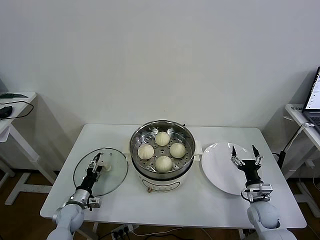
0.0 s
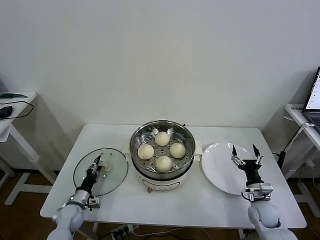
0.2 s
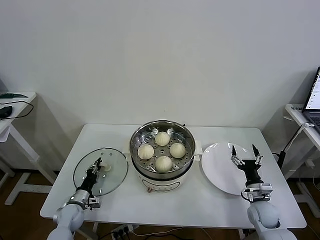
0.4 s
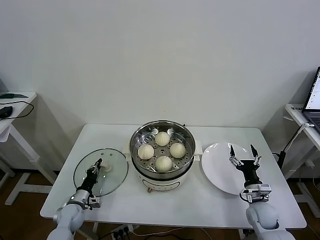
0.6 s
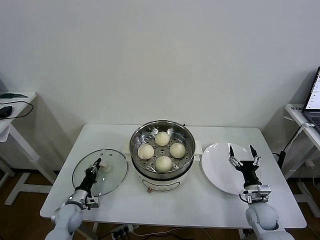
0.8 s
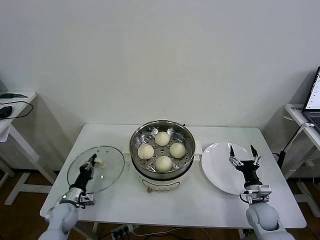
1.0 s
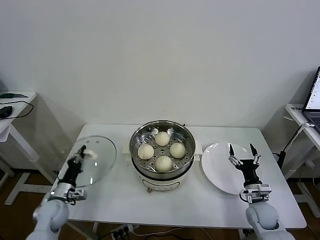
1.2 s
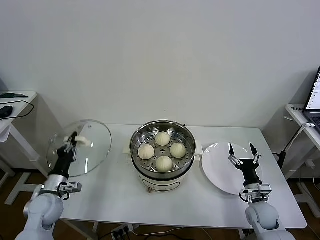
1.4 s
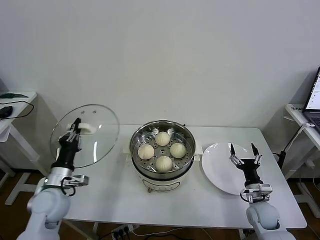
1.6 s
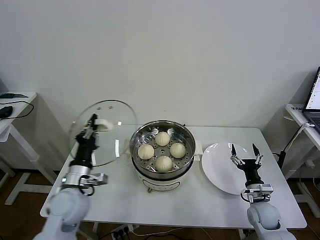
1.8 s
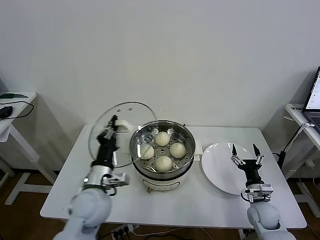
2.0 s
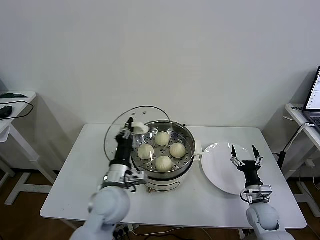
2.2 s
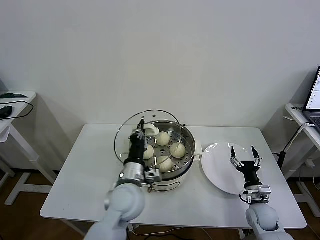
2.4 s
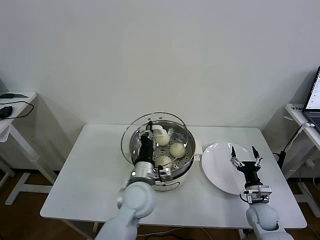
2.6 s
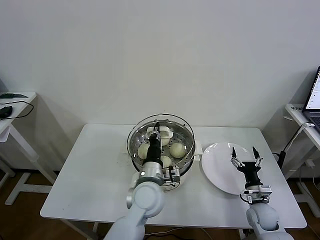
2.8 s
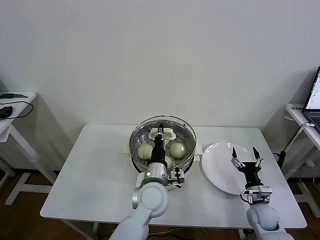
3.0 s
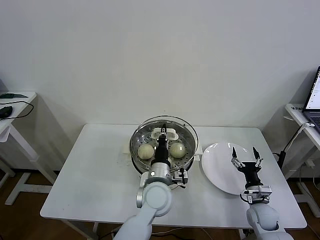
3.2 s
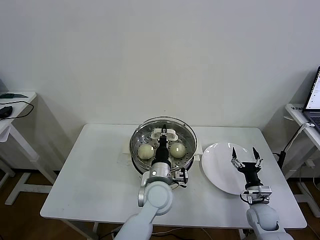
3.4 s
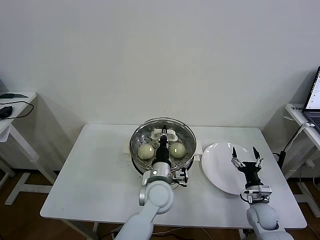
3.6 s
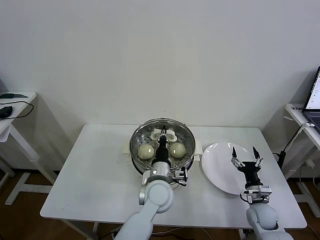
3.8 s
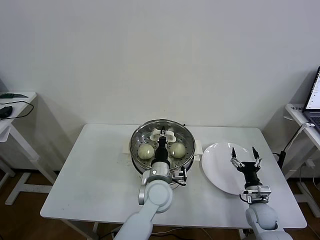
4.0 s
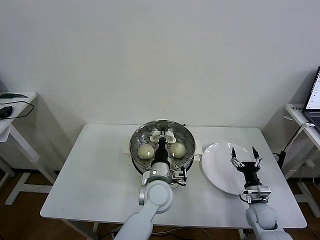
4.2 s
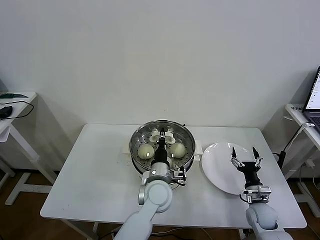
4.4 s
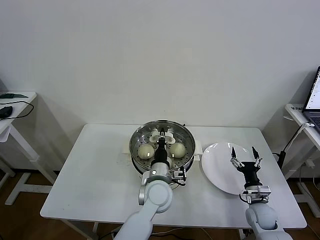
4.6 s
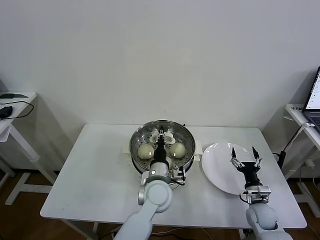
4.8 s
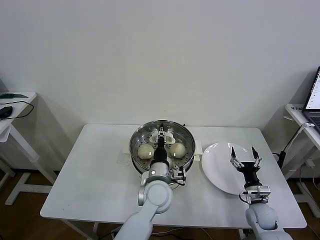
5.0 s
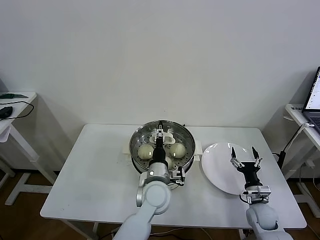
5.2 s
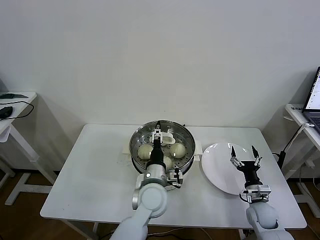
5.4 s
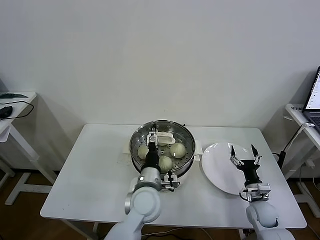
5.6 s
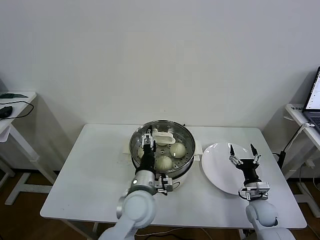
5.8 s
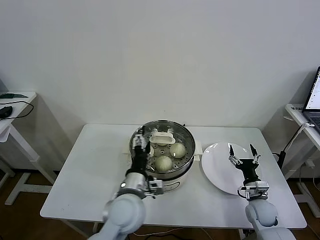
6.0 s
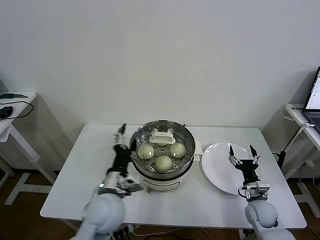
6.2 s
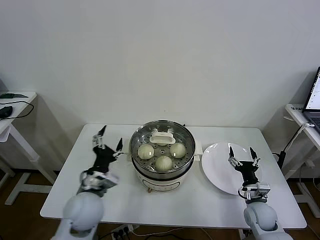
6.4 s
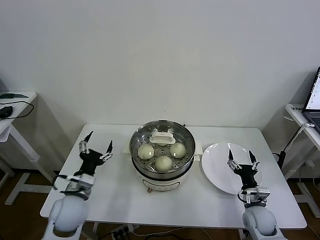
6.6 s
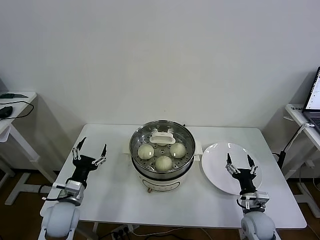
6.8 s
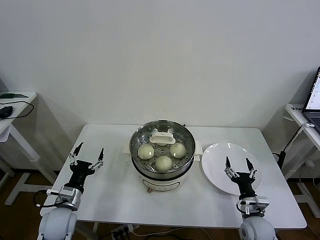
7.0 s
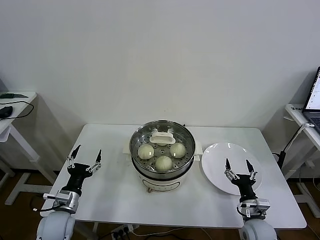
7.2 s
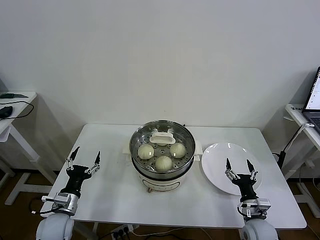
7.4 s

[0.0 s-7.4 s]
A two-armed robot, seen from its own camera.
Task of the whole recording: take steamed baozi put them in steamer then cover it.
Step, 1.0 to 4.8 s: Place the pot lid on the steamer with left gripper.
0.0 to 1.4 s: The left gripper is displaced upward by about 10 cm, and closes its fingers.
1.4 to 3.0 s: The left gripper travels to the right by approximately 35 cm.
3.0 to 4.4 s: There are only small adjustments of the grippers.
4.4 to 6.0 s: The left gripper travels to the left and backward by some 10 cm, and opens its fingers.
6.0 to 7.4 s: The right gripper goes approximately 5 cm backward. Meanwhile the left gripper heads to the left and downward, covering about 25 cm.

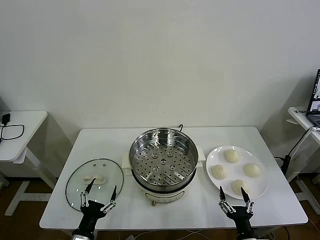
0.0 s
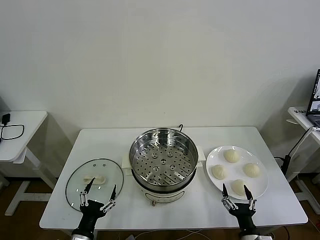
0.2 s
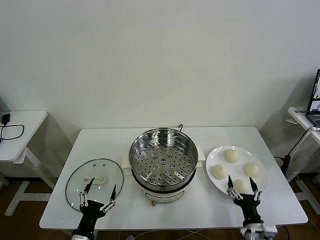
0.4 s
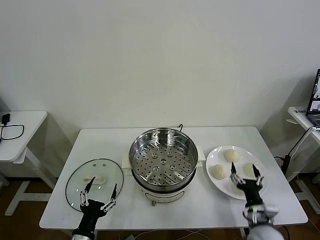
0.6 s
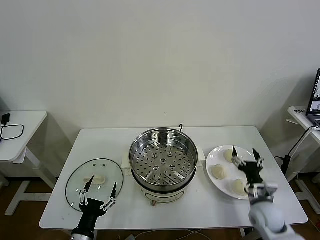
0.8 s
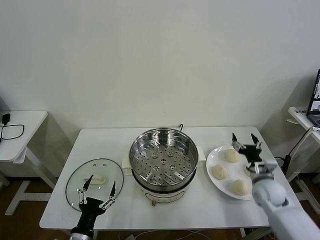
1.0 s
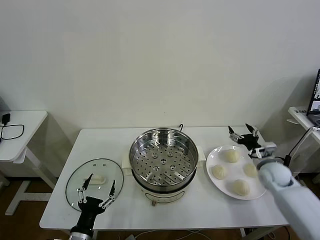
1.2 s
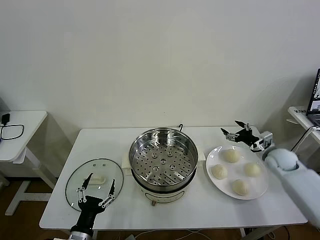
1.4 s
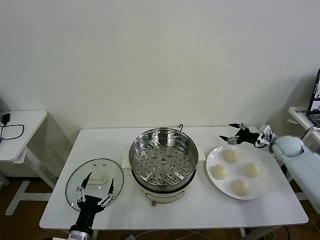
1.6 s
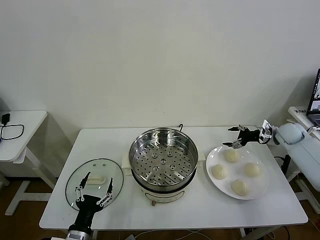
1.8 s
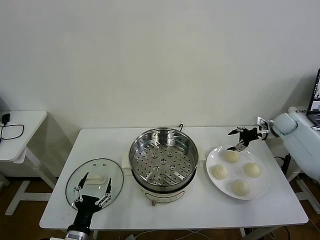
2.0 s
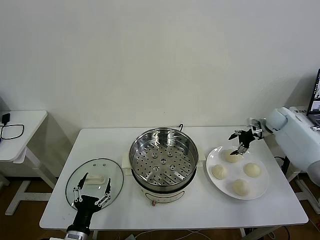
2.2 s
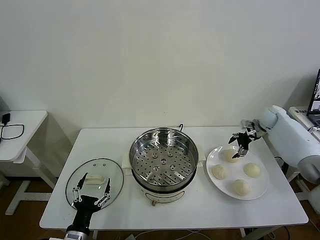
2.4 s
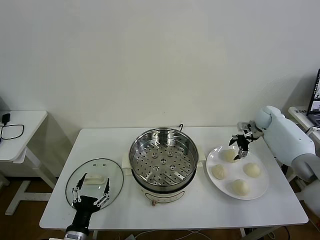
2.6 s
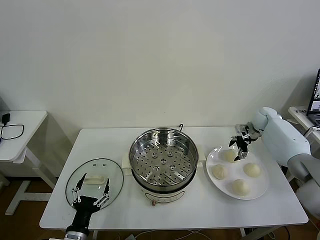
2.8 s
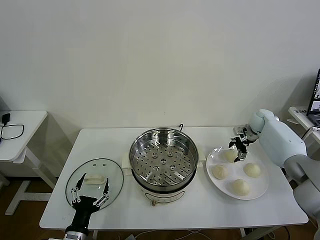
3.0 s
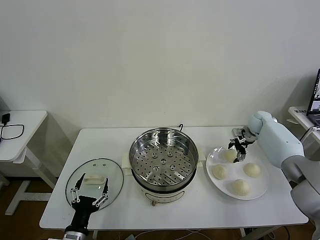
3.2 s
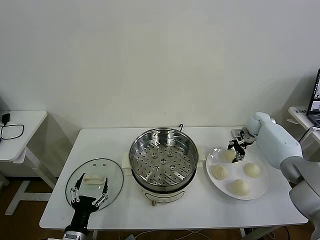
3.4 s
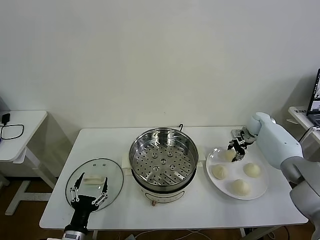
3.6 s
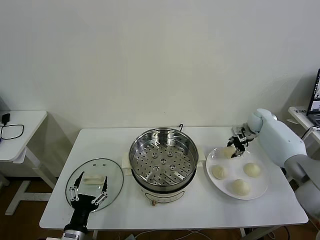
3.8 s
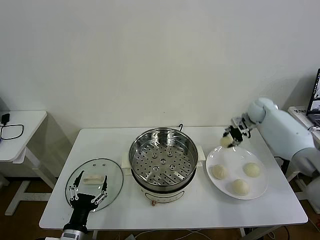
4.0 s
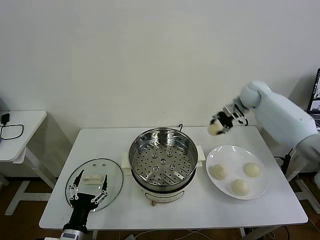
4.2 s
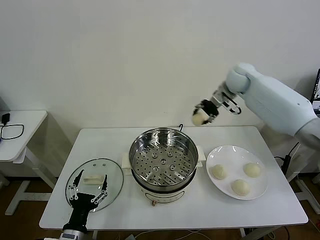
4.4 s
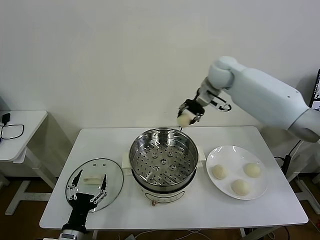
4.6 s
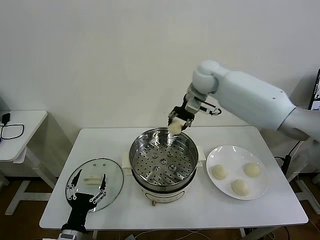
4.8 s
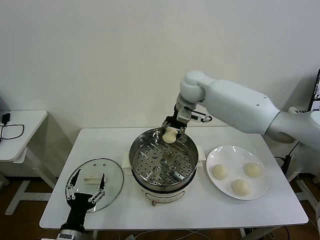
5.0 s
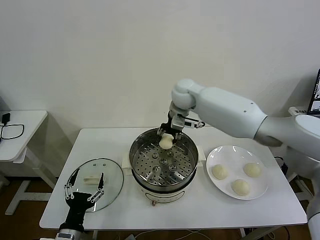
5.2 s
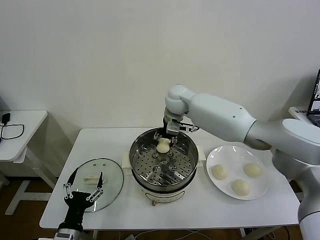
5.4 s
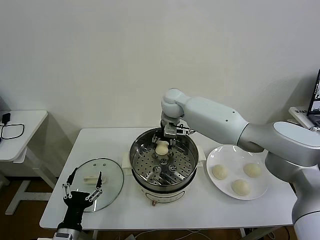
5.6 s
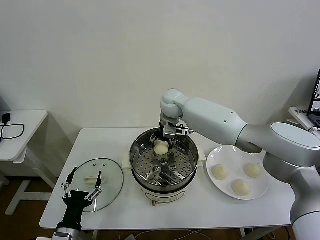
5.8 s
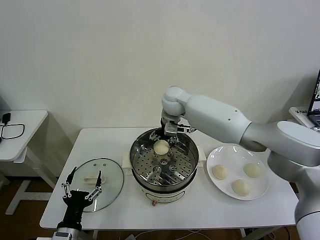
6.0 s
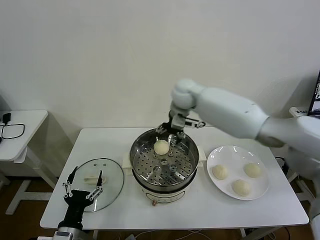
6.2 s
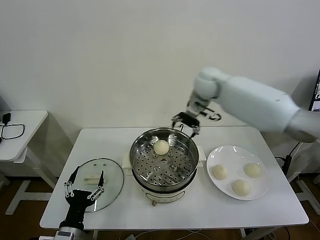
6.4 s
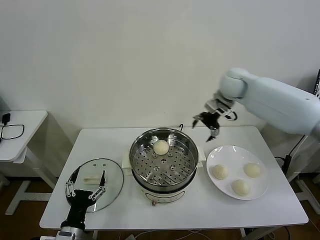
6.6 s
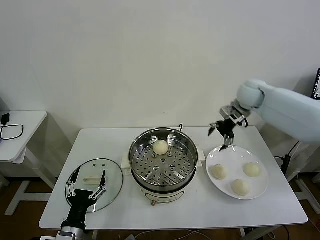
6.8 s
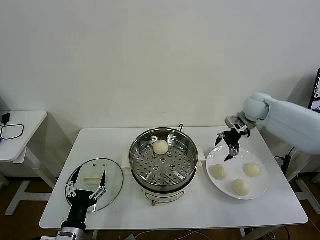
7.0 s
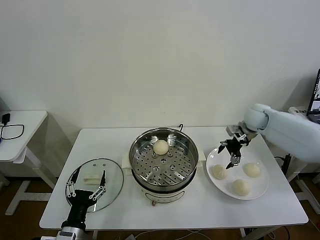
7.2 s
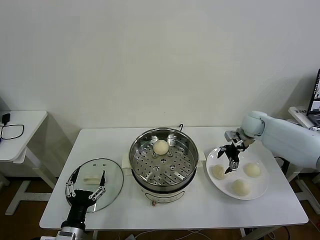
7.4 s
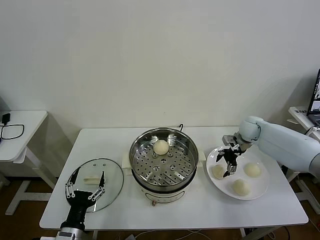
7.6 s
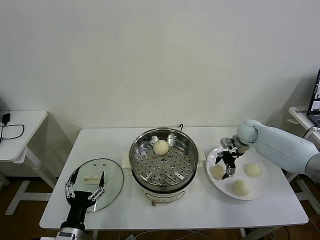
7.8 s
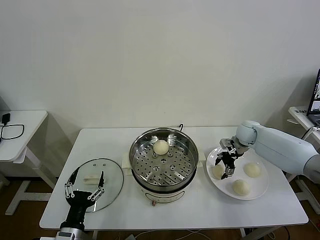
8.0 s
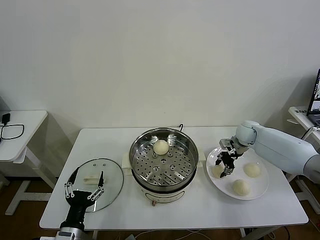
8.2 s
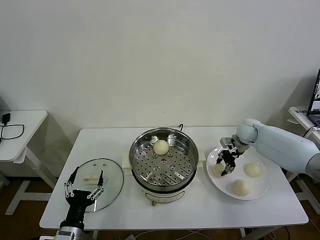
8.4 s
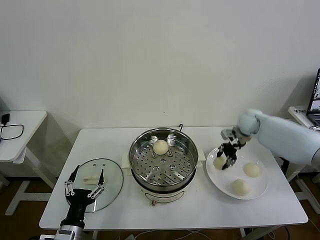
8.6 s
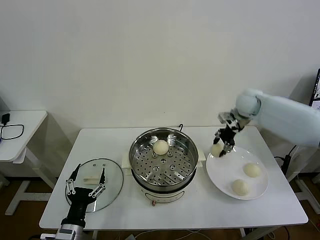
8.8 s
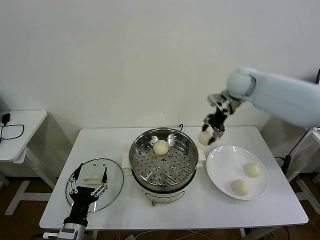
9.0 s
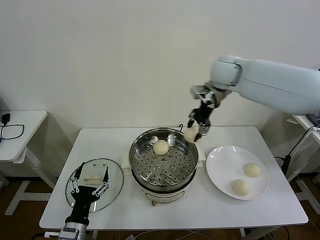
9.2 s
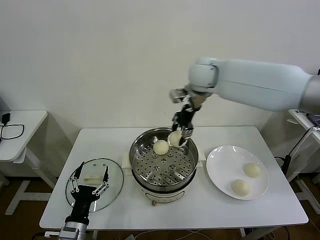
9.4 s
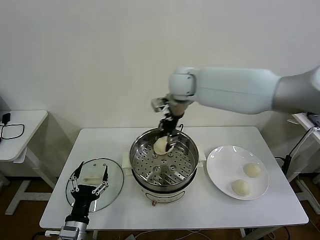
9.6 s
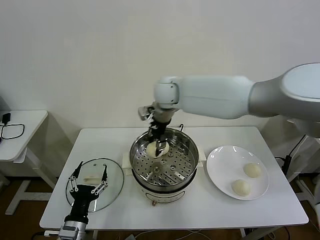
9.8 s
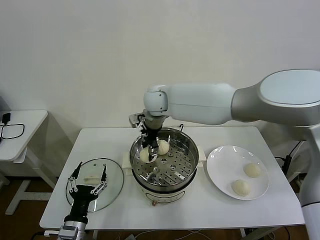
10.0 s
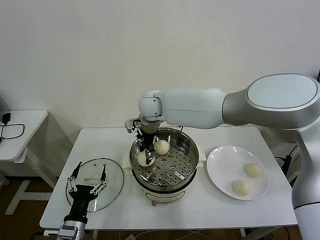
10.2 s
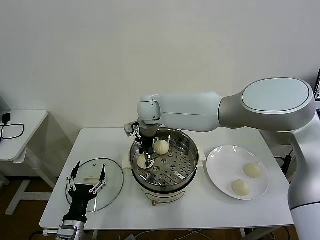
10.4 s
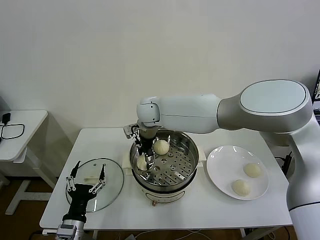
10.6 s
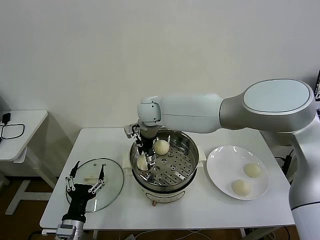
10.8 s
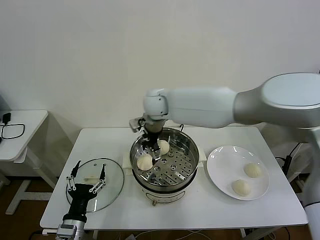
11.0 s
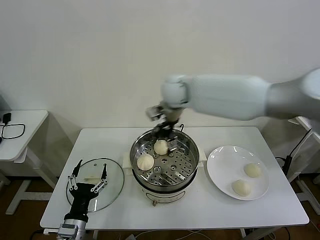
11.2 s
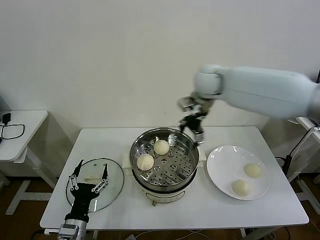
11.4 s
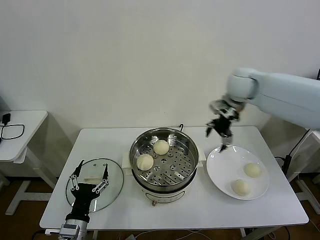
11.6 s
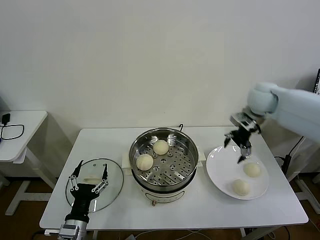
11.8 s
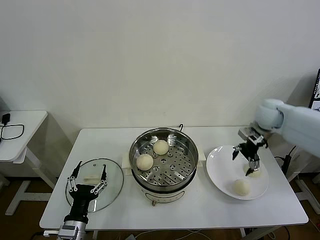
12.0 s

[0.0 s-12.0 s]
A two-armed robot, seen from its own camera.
Task of the whole recording: take steamed baozi put them in steamer then cover it.
Step, 0.0 to 3.4 s: Grasp the baozi in the plate with right gripper.
Step, 3.6 to 5.8 s: Place the baozi on the steamer with right gripper.
Step, 6.2 to 8.2 s: Grasp the baozi in the plate with right gripper.
Step, 8.4 to 10.8 s: Place the baozi on the steamer with right gripper.
1.6 to 3.0 s: The right gripper goes approximately 10 cm forward and to the left.
3.0 to 4.4 s: The right gripper is displaced upward and to the left by about 30 cm, and closes up.
4.4 to 6.0 s: The right gripper is displaced to the left and downward by roughly 20 cm, and opens up.
6.0 to 7.6 s: The right gripper heads to the right and downward, covering some 35 cm.
7.6 to 9.0 s: The right gripper shifts some 25 cm upward and to the left, and closes.
9.0 to 10.4 s: The right gripper heads to the left, covering about 25 cm.
10.4 to 12.0 s: The right gripper moves to the right, some 40 cm, and opens.

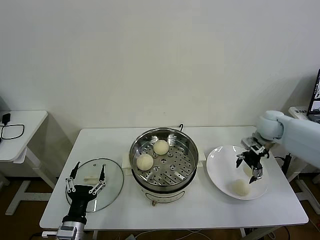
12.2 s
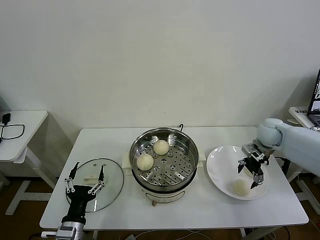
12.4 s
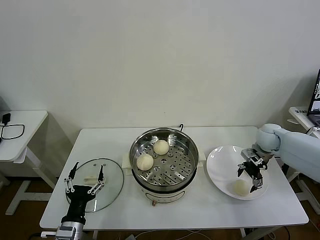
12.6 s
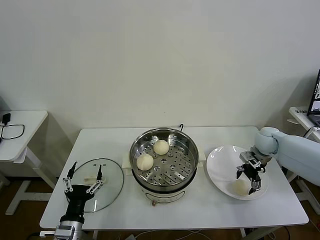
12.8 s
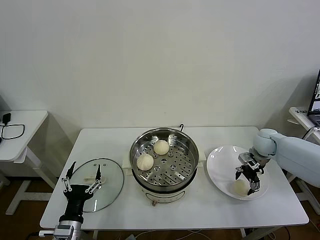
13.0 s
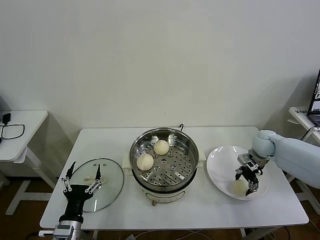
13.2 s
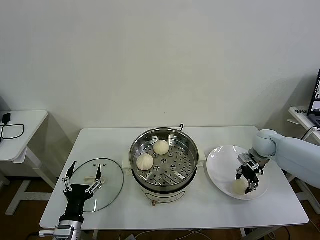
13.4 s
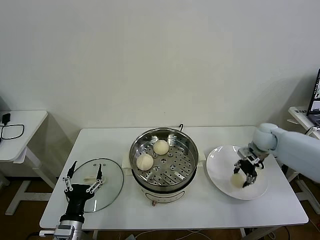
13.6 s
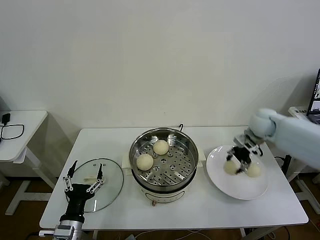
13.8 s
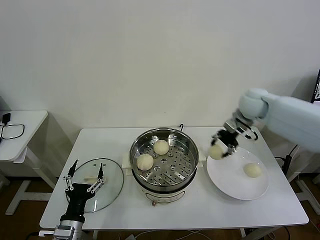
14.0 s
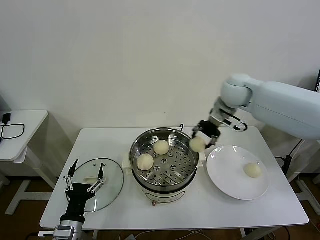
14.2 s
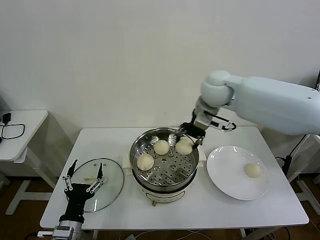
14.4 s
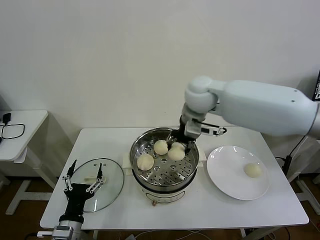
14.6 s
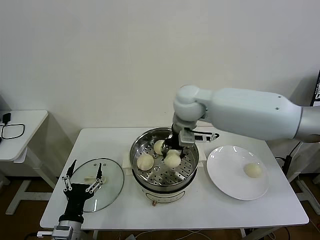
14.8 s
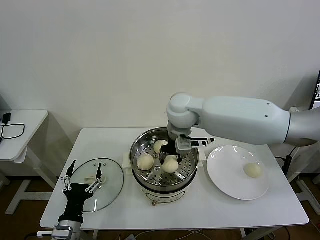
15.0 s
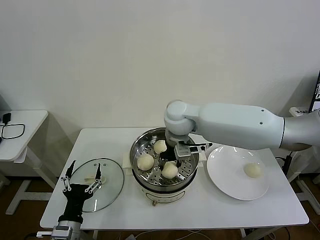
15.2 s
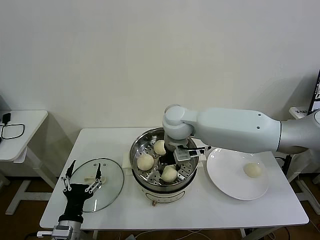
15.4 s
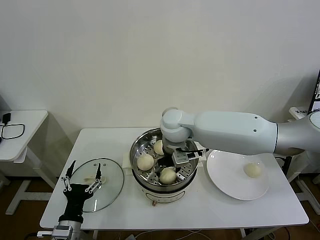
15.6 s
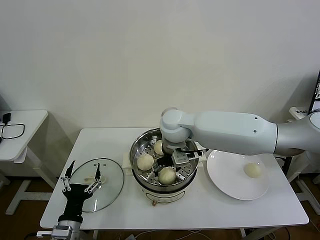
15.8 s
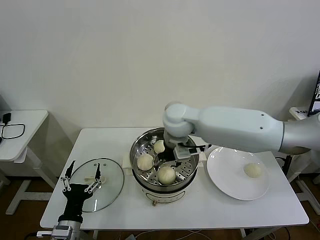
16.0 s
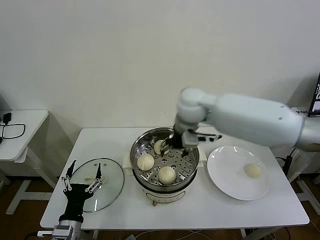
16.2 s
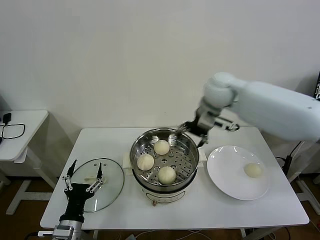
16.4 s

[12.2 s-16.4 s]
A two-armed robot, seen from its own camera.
Task of the whole recording: take steamed baozi put them in steamer then cover it.
Step, 13.6 to 15.8 s: Place the baozi on the steamer with right gripper.
12.2 to 13.6 s: The right gripper closes.
13.6 to 15.0 s: The right gripper shifts approximately 35 cm to the left and upward.
15.0 to 16.4 s: The right gripper heads to the right and forward, covering some 15 cm, and opens.
